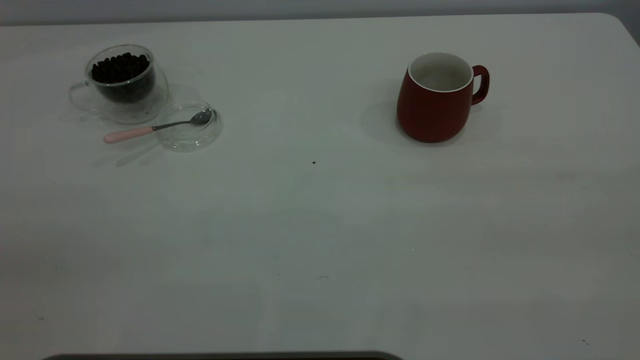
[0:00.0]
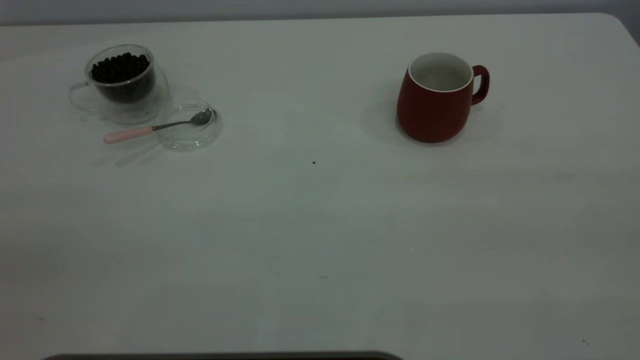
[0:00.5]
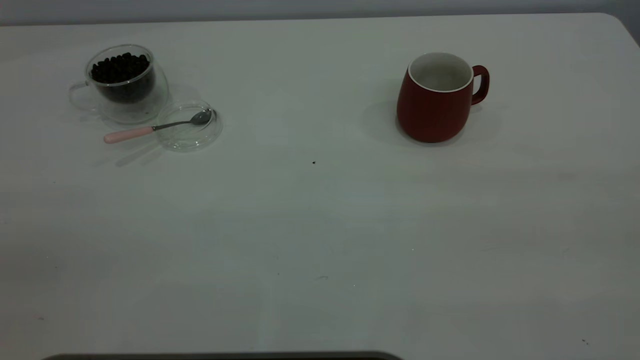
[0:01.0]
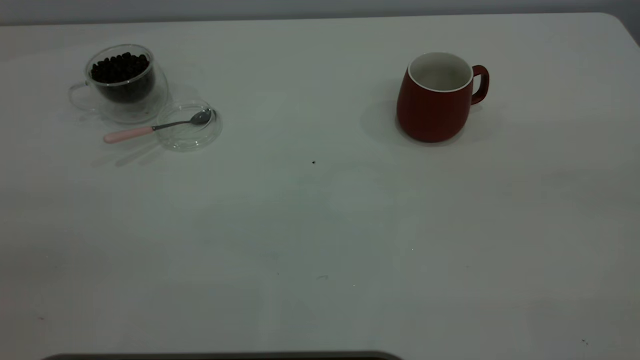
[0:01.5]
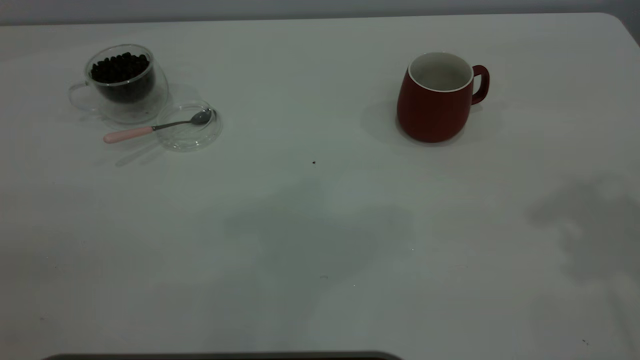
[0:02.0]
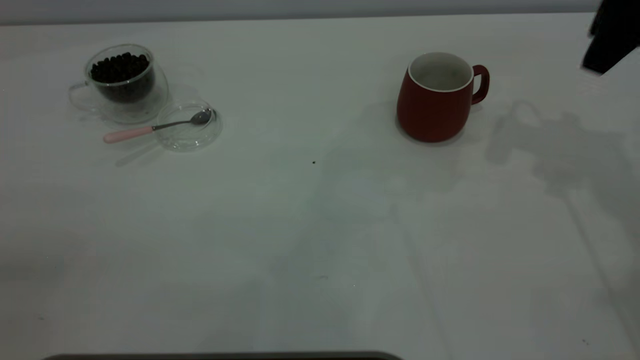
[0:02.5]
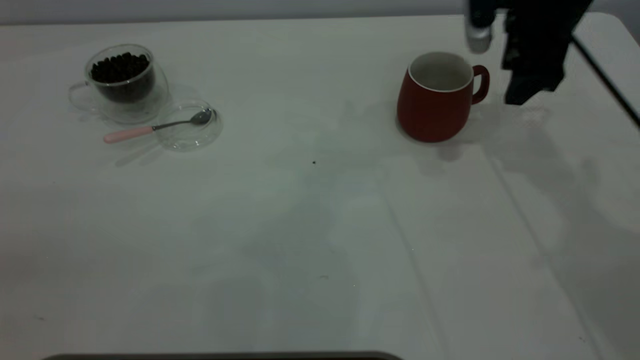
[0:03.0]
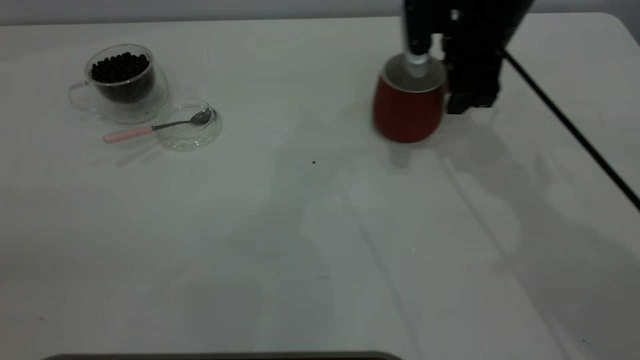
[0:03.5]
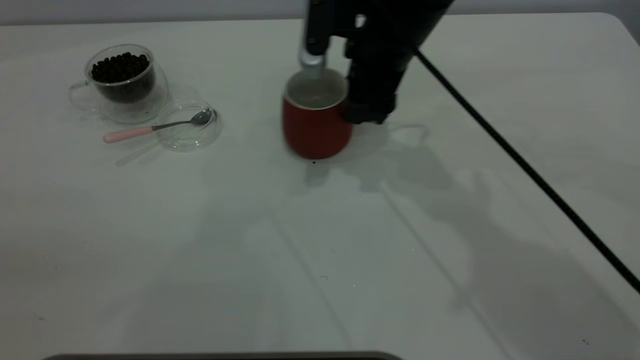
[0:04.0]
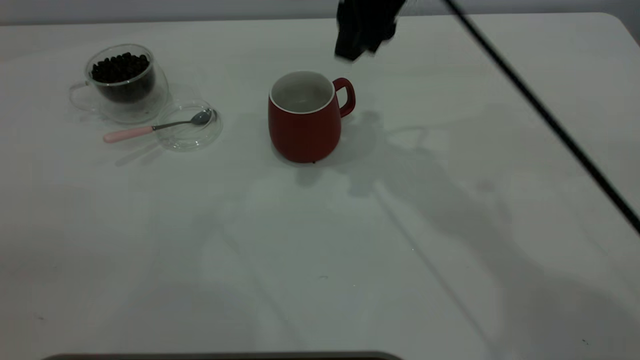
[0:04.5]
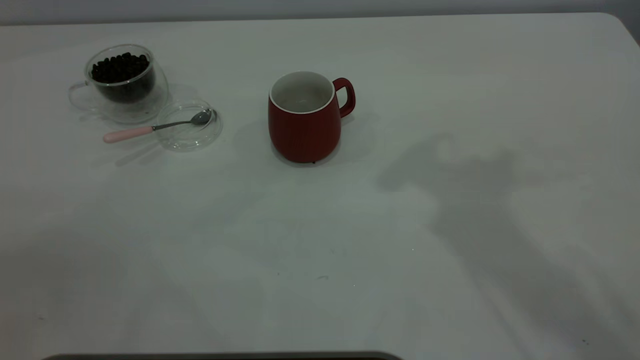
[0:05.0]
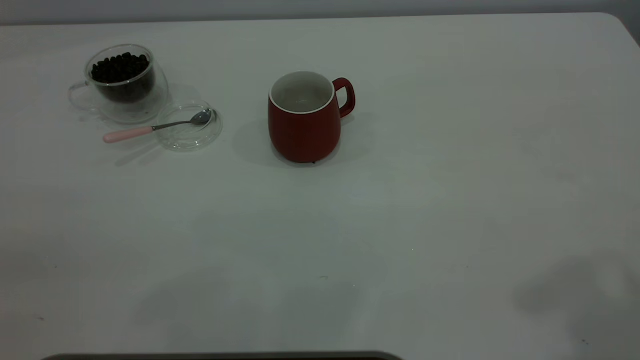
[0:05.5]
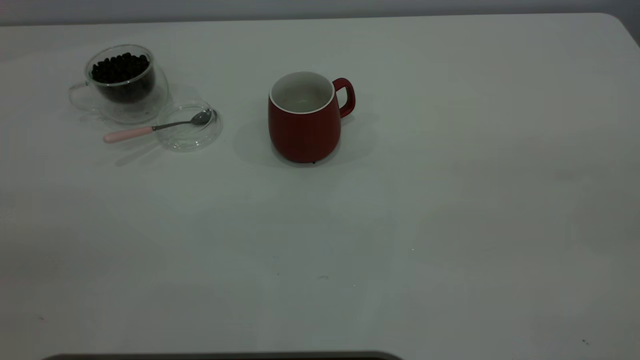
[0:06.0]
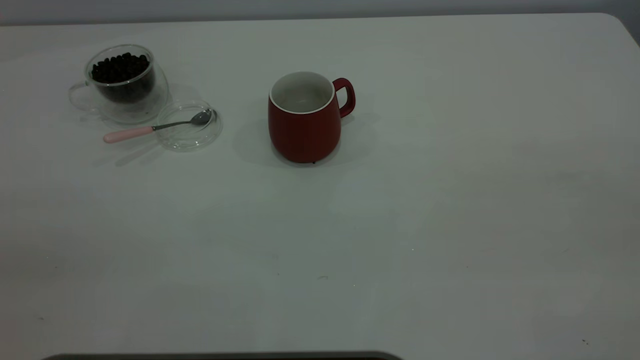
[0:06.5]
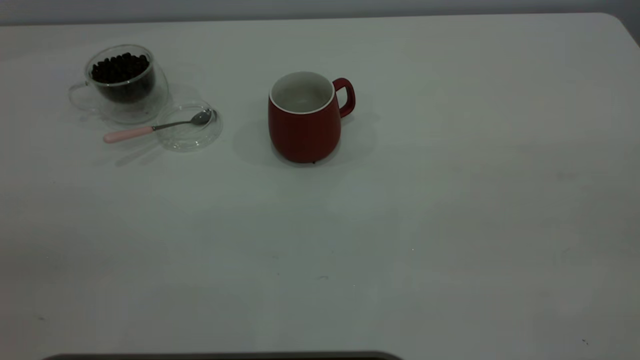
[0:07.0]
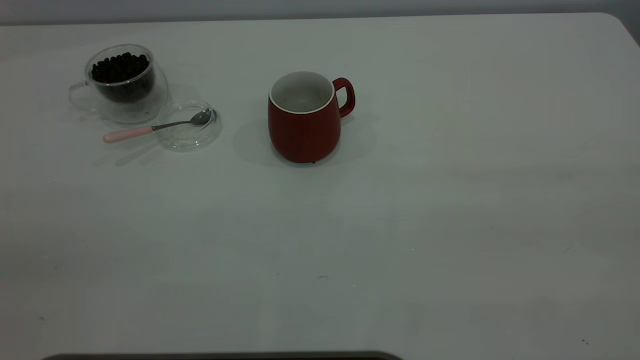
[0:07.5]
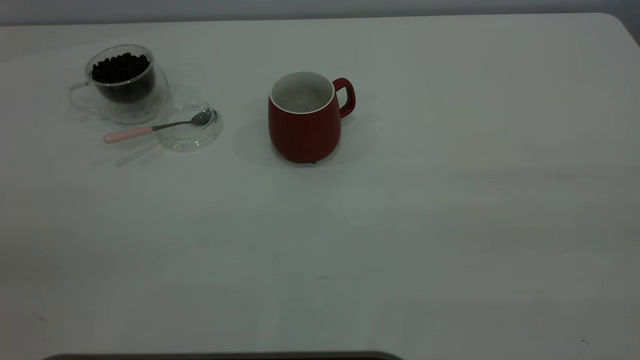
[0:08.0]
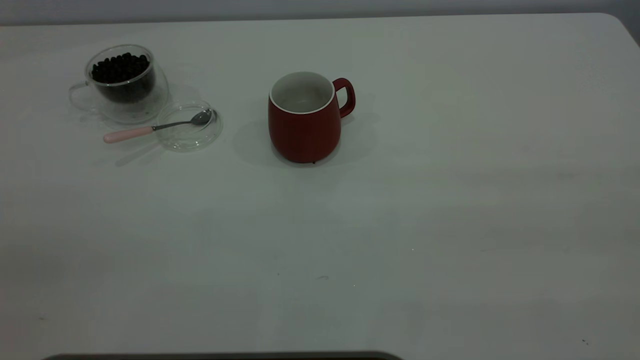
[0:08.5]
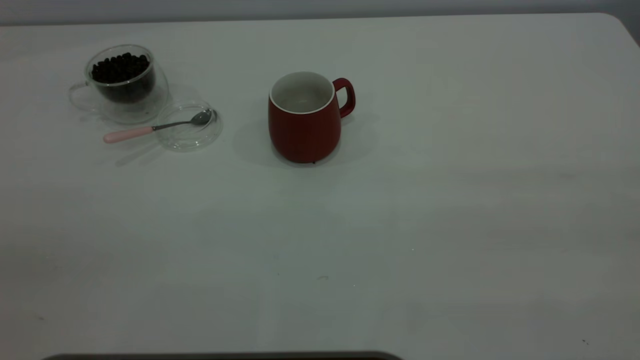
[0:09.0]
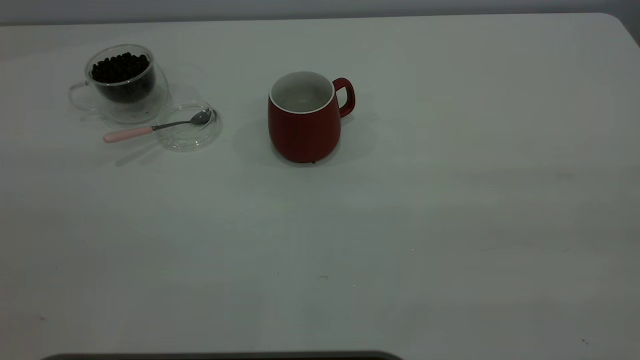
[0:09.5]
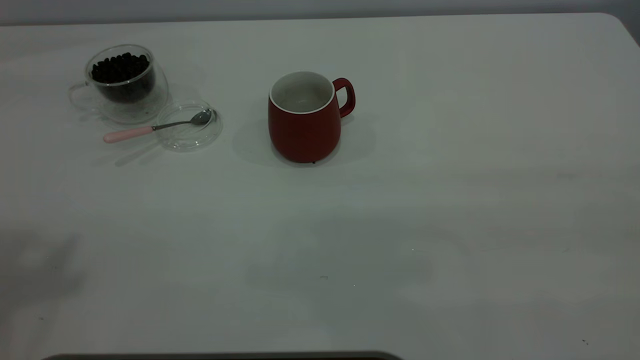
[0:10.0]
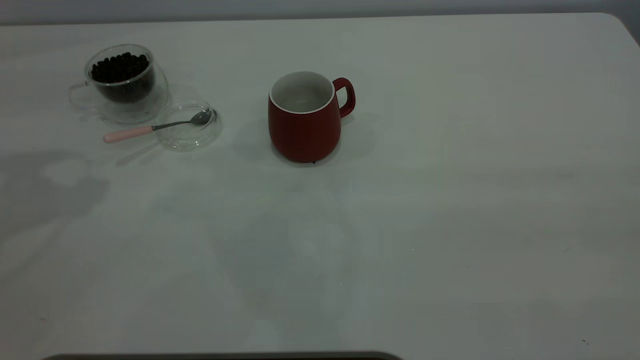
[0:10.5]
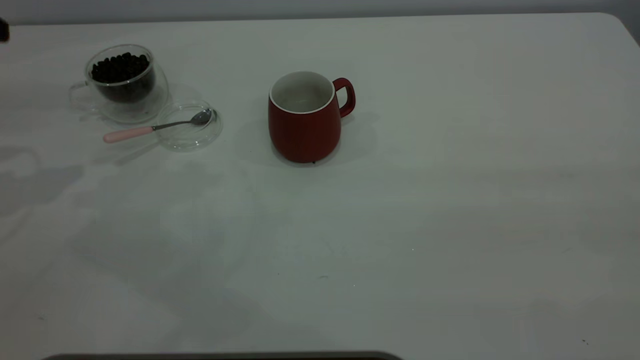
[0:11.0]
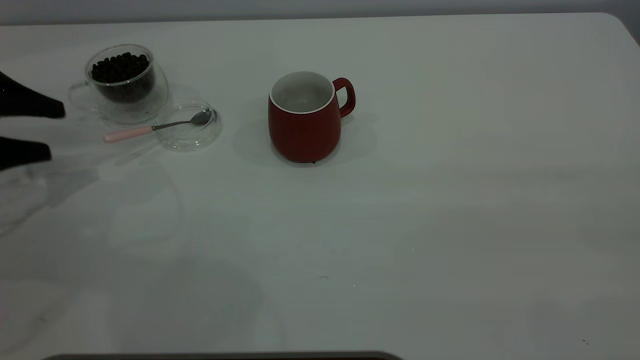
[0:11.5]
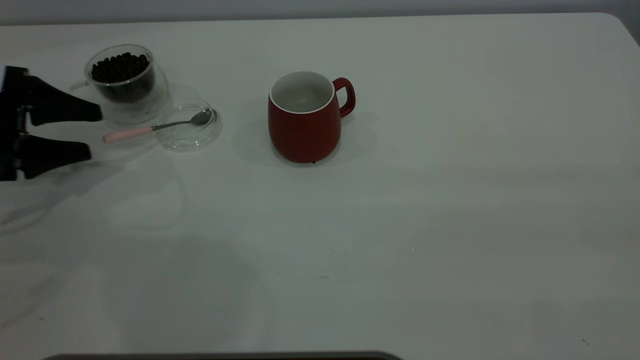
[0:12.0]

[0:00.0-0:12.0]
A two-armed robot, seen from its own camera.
Task of the whole recording: the right gripper place the red cup in the center of the table, the left gripper take the pink spoon from the cup lid and scoop out the coffee beans from the coffee cup and put them into the red cup, the left gripper put the spoon back into the cup lid.
Step, 0:00.0 to 0:04.0: Move the cup to the center of view.
0:02.0 to 0:04.0: The right gripper travels downward, to the left and forward by about 35 cm, and closes.
0:04.0 to 0:06.0: The right gripper moves backward, to the right and upward, approximately 50 cm, and closes and opens again.
0:10.0 to 0:12.0: The left gripper goes approximately 35 cm downward.

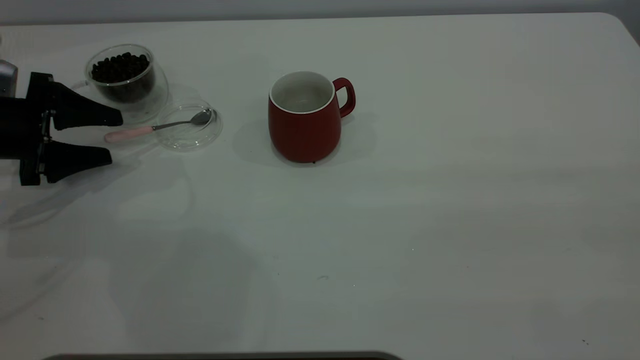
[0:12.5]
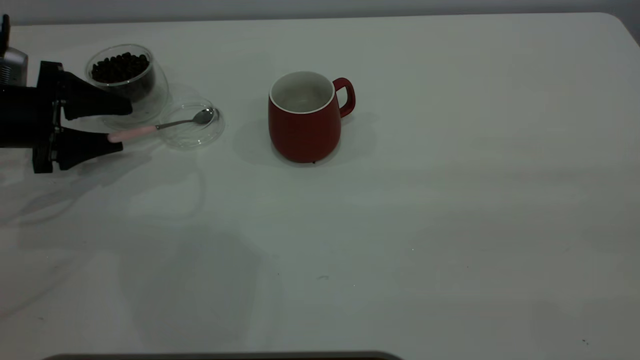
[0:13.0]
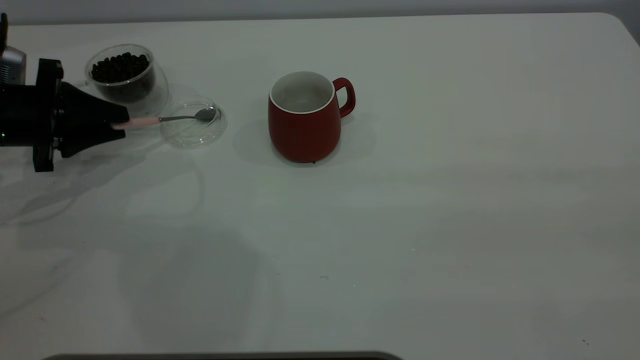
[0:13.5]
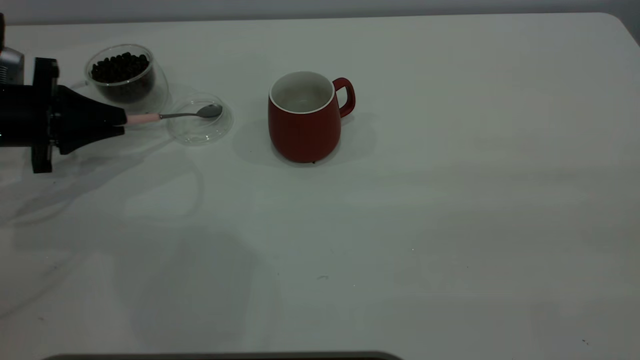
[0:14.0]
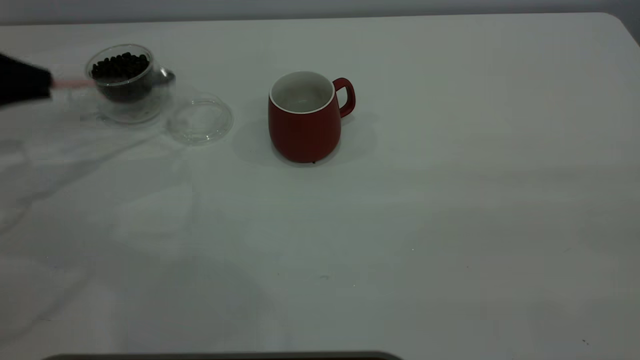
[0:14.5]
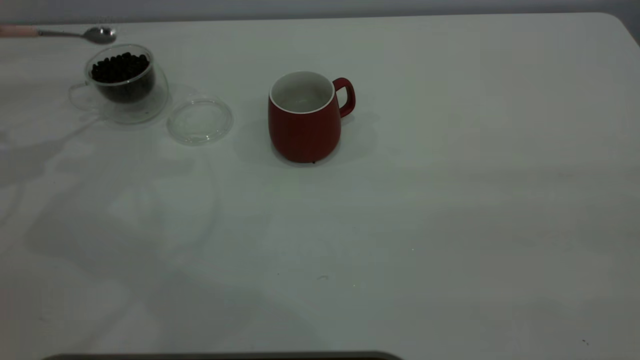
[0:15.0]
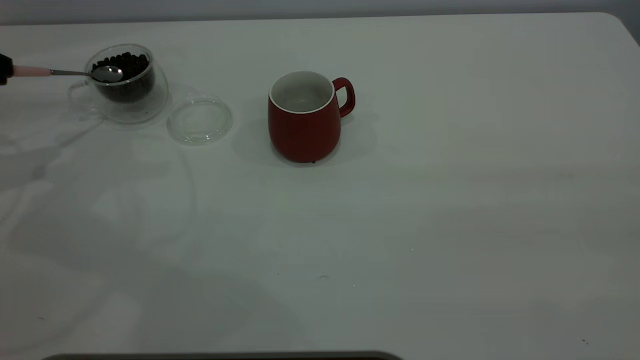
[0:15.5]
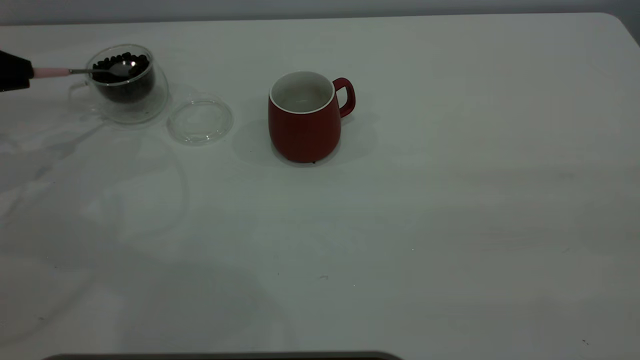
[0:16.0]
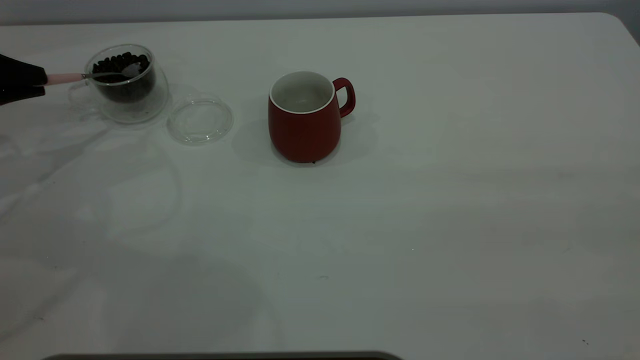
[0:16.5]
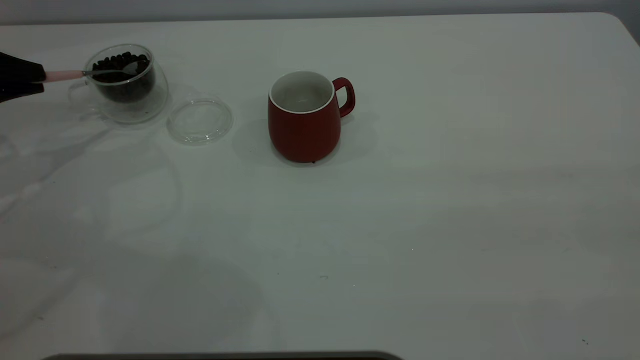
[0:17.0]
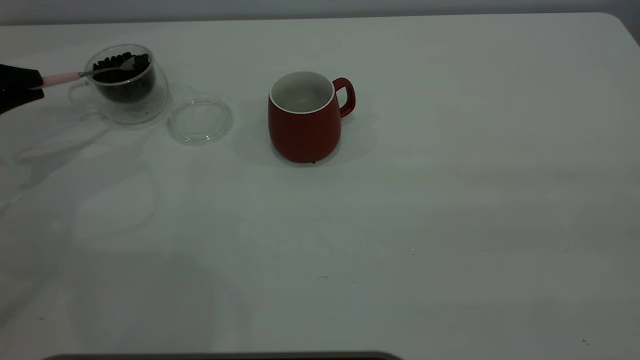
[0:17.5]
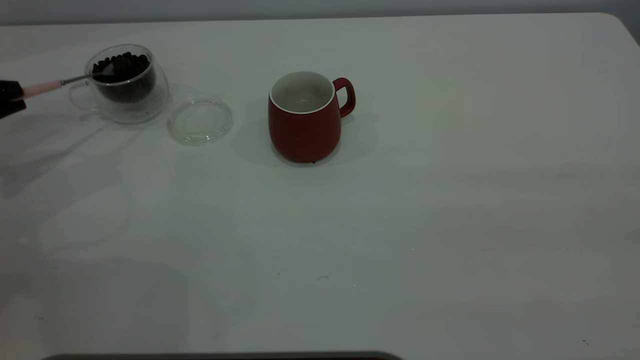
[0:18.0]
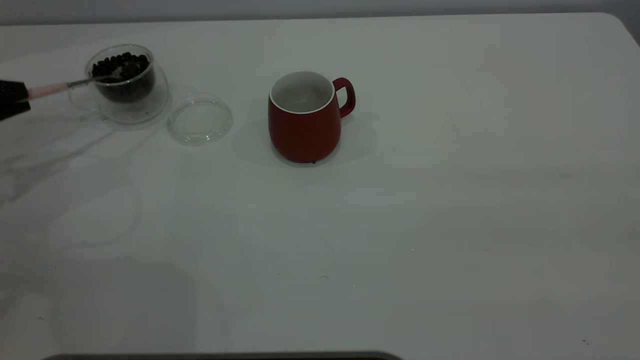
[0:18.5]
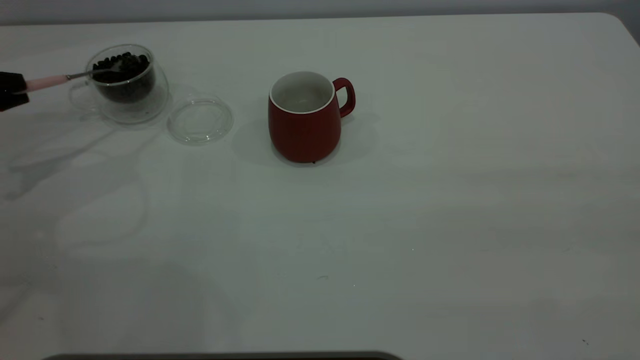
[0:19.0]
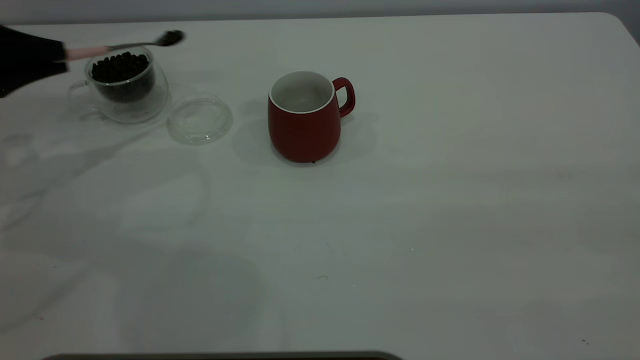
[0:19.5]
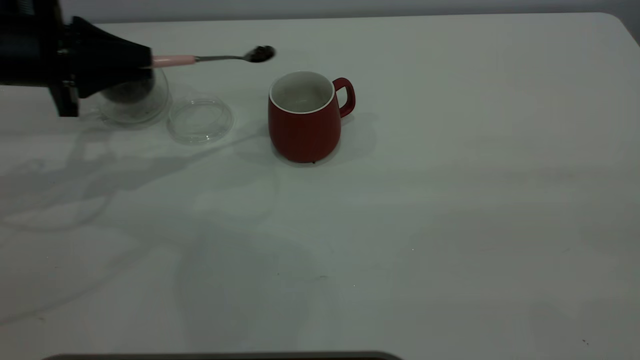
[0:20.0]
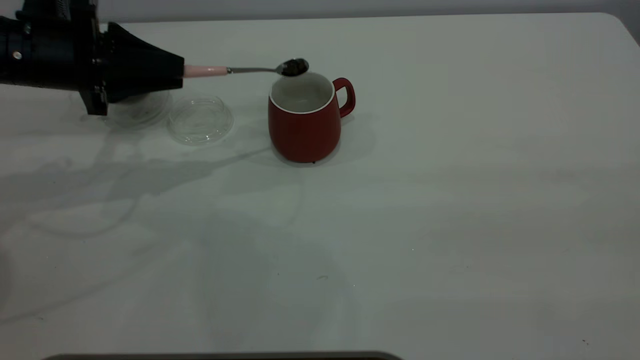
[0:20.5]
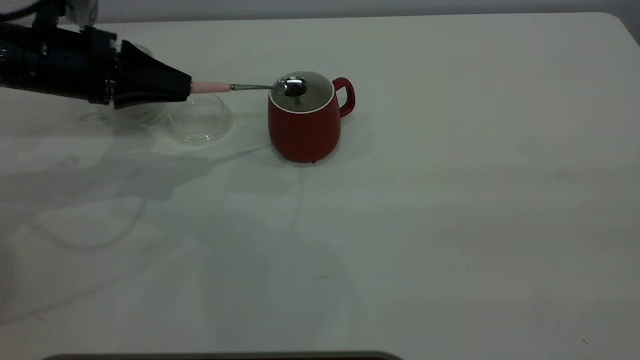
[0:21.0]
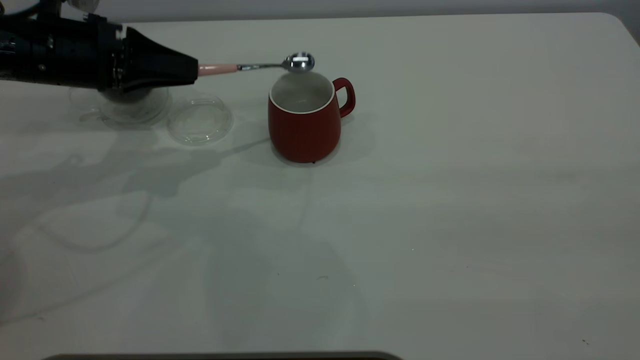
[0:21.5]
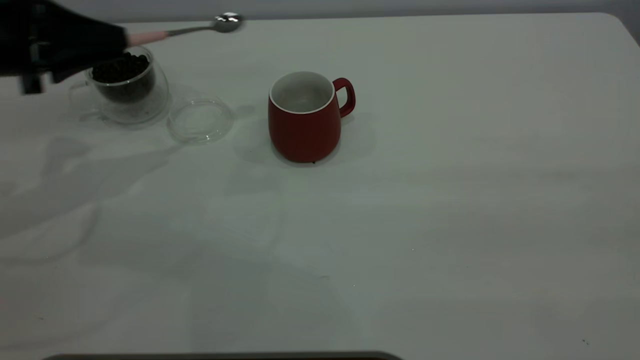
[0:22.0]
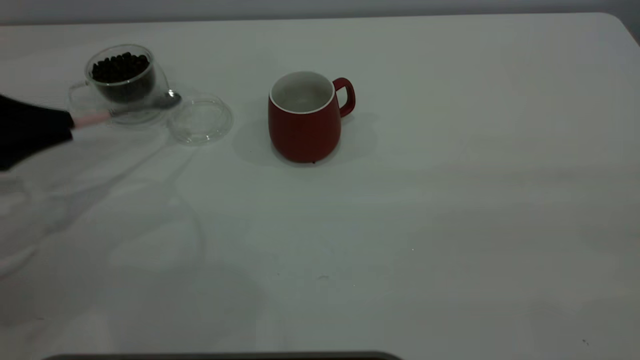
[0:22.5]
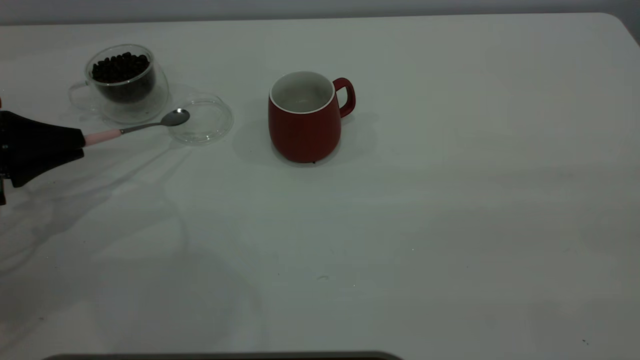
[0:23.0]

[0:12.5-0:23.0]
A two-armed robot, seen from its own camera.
Task of the whole recording: the right gripper place the red cup in the center of the table, the left gripper take the pink spoon from the cup lid and scoop out the coffee beans from the coffee cup and put them into the red cup, the left gripper put the spoon back into the cup lid.
Step, 0:12.5 to 0:14.5: Pick up the spoon.
Step, 0:15.0 to 0:21.5: Scoop a spoonful of beans into the cup.
0:12.5 to 0:14.5: The left gripper is displaced upward by about 10 cm, and closes.
0:19.0 to 0:21.0: The left gripper heads to the right, covering roughly 15 cm.
0:21.0 to 0:23.0: The left gripper travels to the left and backward by about 15 cm.
